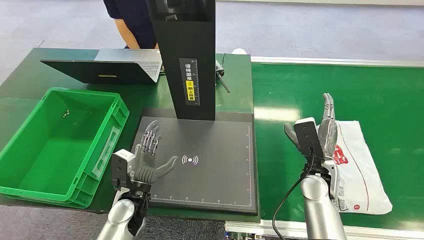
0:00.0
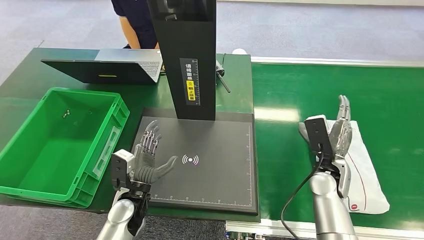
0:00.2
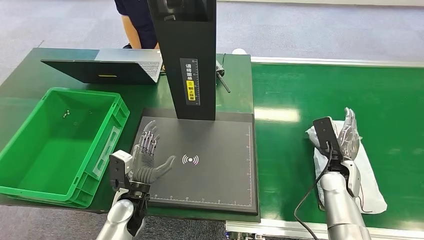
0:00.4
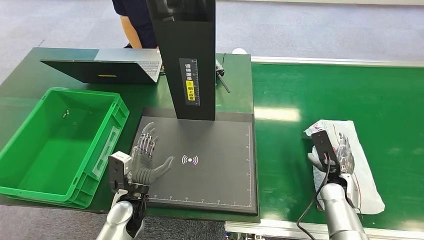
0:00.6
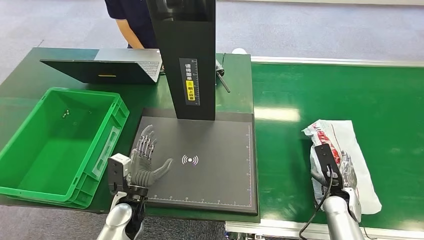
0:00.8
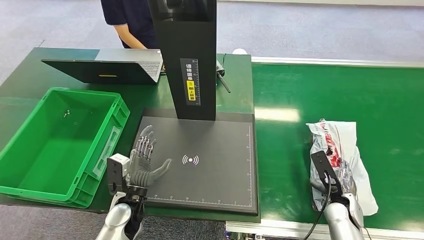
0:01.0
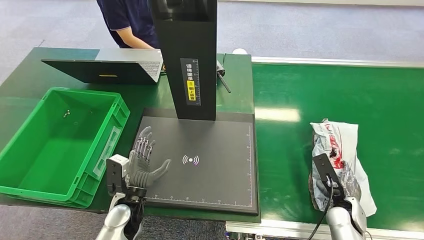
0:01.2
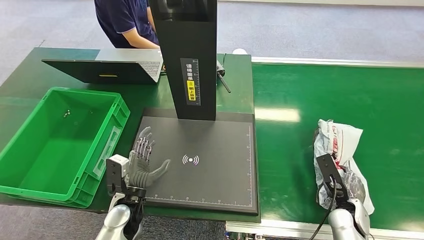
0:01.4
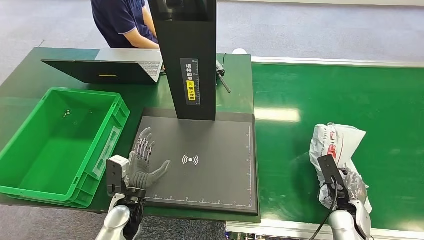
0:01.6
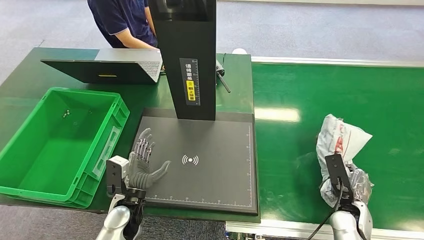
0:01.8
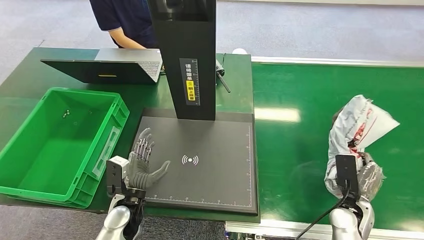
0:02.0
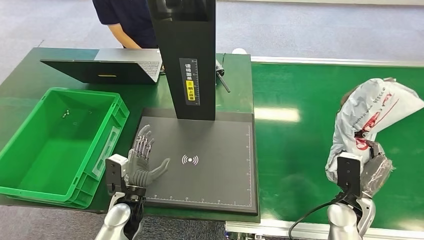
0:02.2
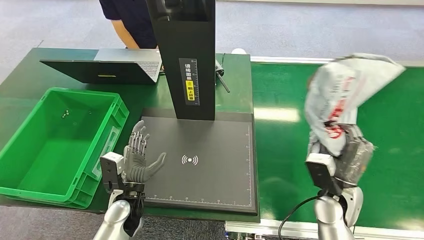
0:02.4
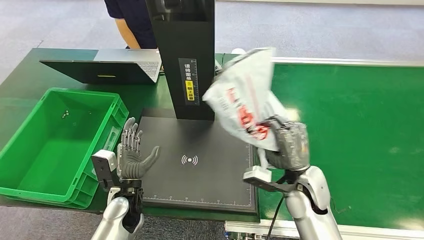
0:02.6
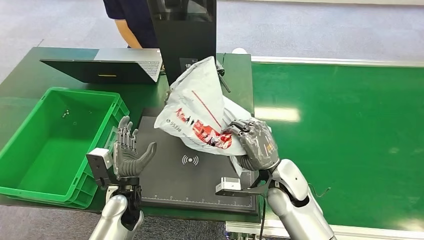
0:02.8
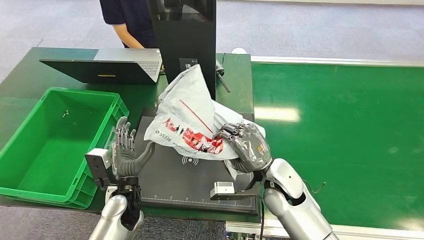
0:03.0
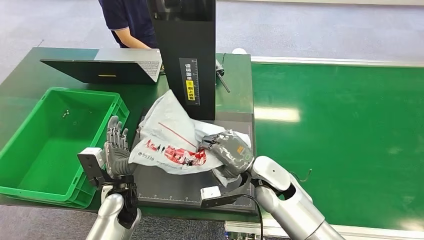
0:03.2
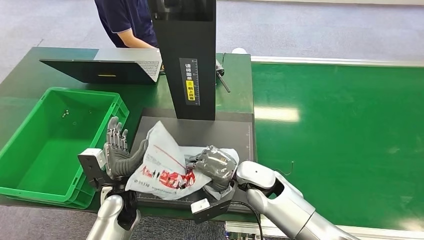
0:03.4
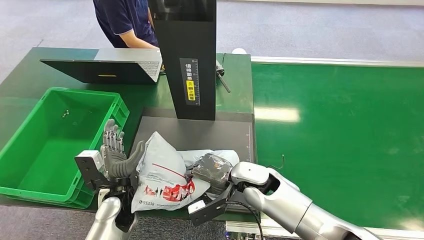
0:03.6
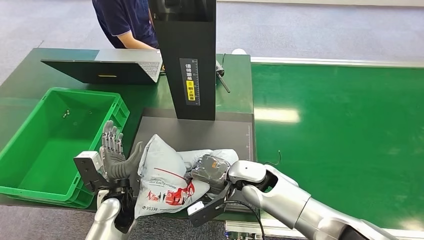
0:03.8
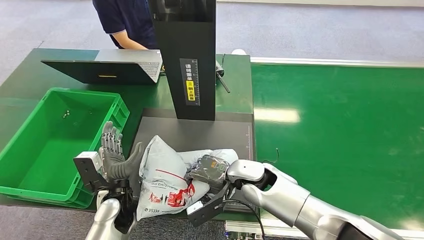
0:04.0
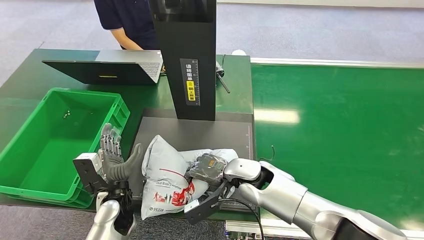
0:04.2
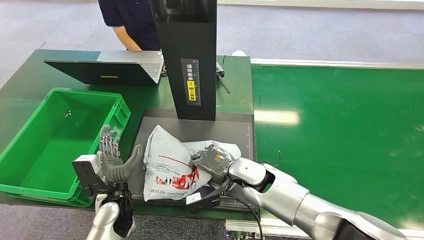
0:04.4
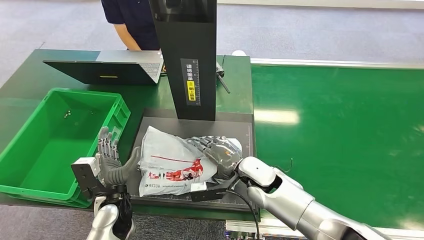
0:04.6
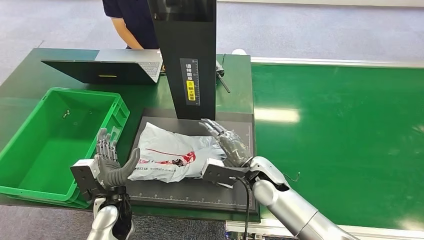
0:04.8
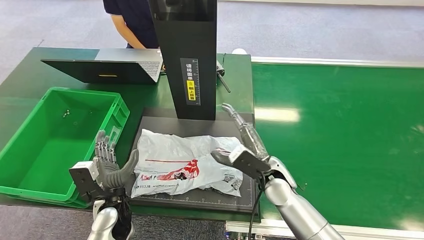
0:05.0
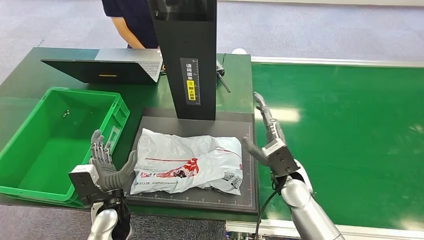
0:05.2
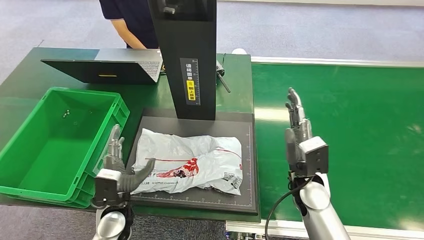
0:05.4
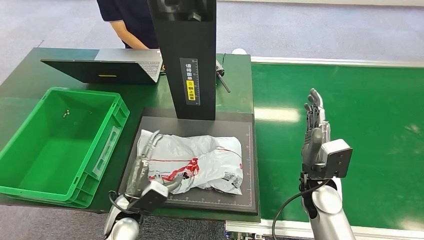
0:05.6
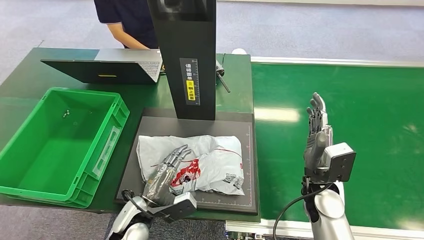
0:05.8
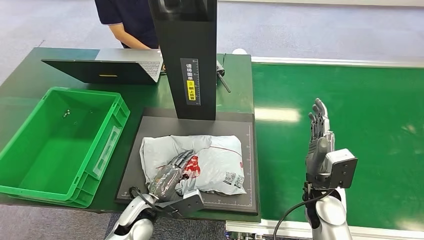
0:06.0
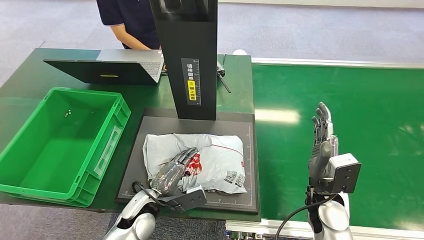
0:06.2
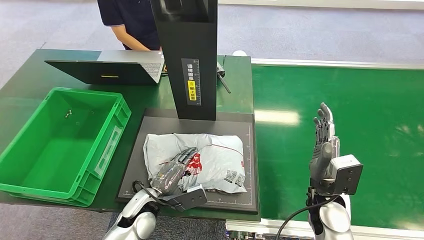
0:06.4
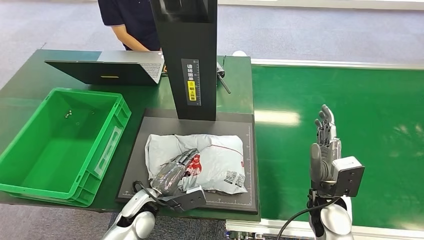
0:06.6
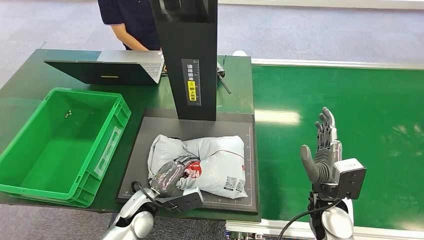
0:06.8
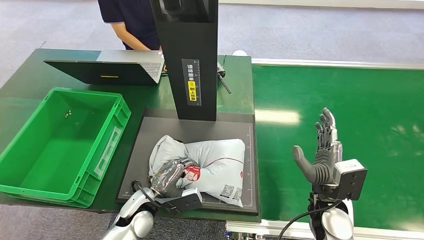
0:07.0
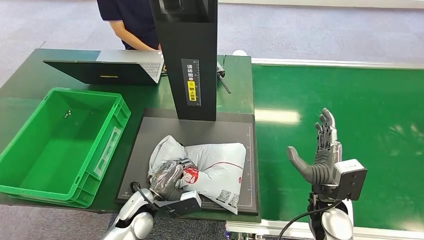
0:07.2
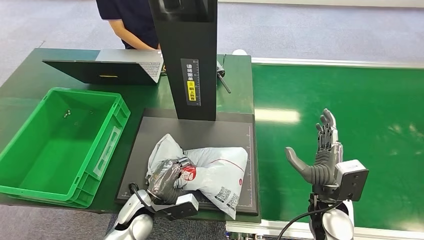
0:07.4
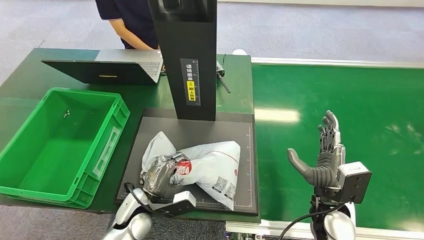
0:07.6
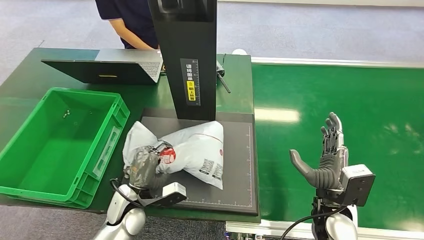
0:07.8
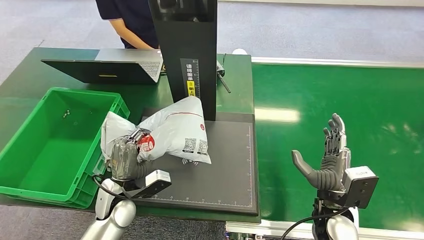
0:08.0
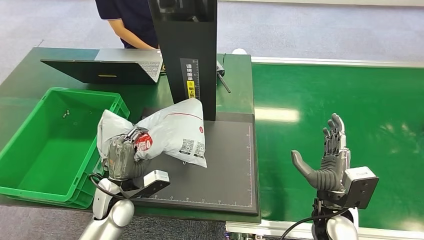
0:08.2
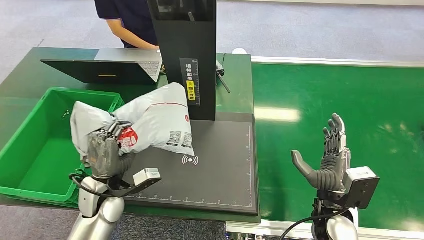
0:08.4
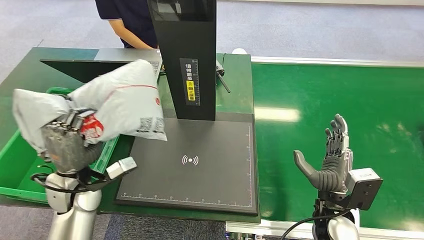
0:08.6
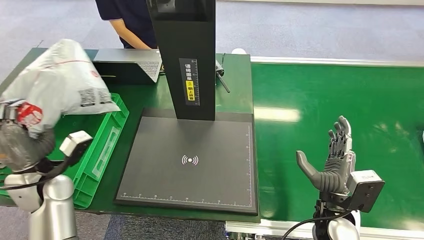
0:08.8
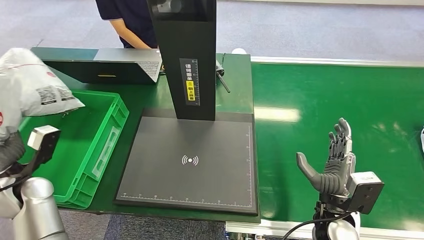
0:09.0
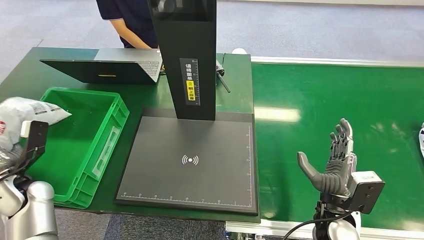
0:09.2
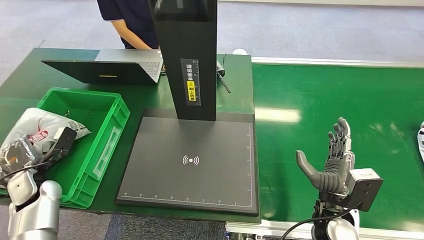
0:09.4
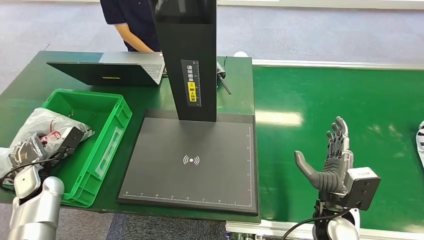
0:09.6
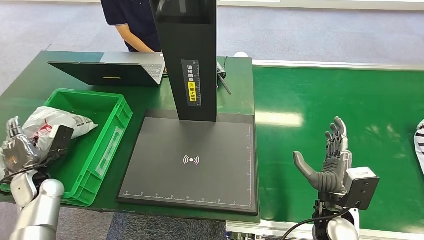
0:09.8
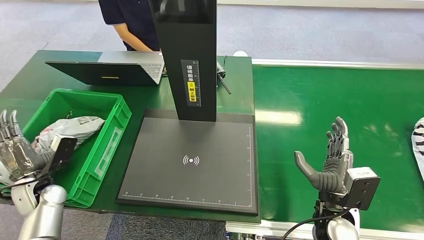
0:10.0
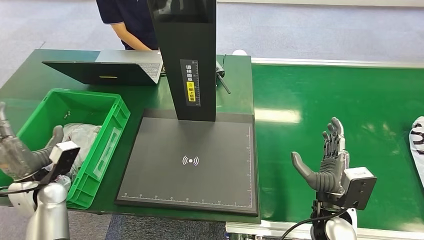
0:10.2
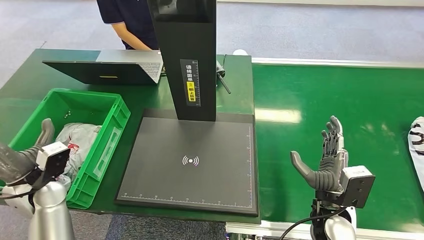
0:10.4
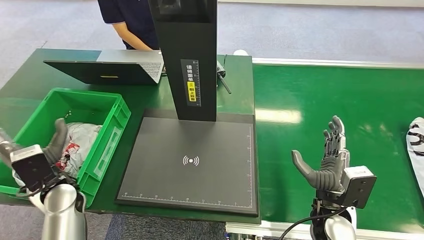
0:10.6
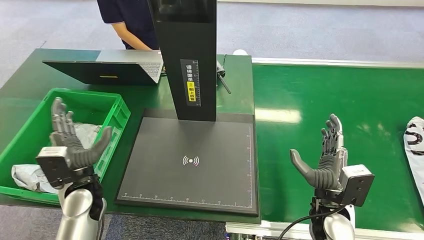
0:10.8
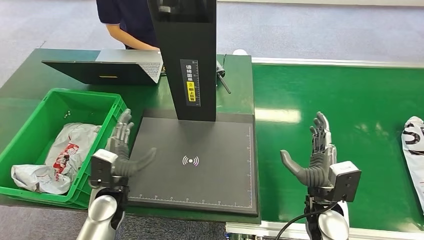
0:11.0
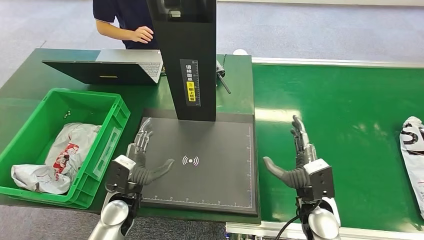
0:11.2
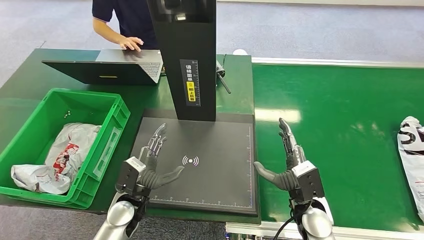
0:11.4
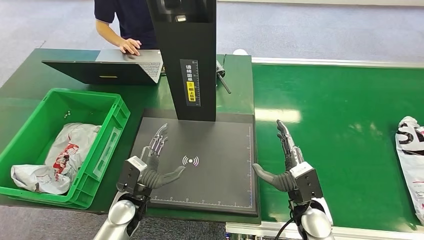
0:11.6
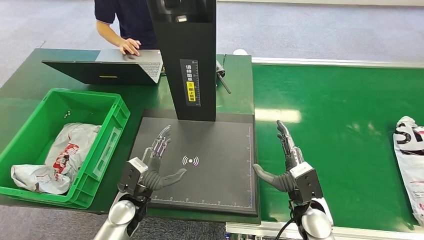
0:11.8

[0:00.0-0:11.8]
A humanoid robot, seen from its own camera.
Step, 0:00.0 to 0:02.4: Pick up the package from the conveyor belt.
Step, 0:02.6 to 0:05.2: Place the package onto the inbound machine.
Step, 0:05.4 to 0:08.2: Pick up the package from the inbound machine.
Step, 0:08.4 to 0:11.8: Place the package into the parcel locker.
0:06.0 to 0:07.4: The hands stay close to where they were, moving slightly.
0:10.4 to 0:11.8: The left hand travels to the right and downward by some 20 cm.
